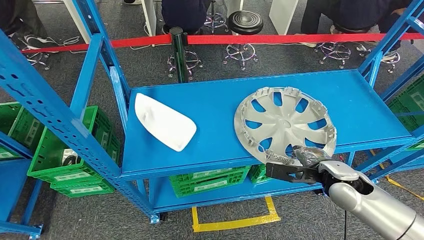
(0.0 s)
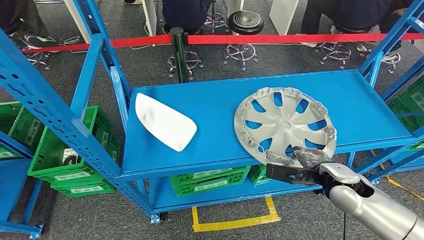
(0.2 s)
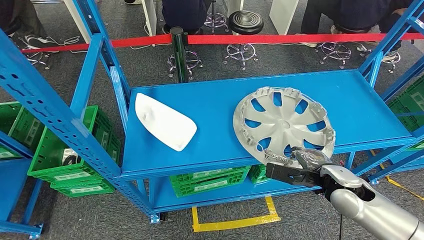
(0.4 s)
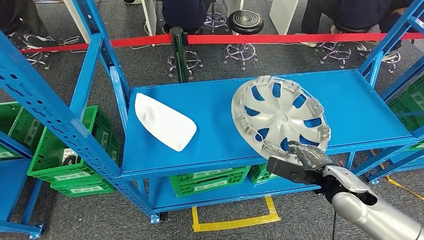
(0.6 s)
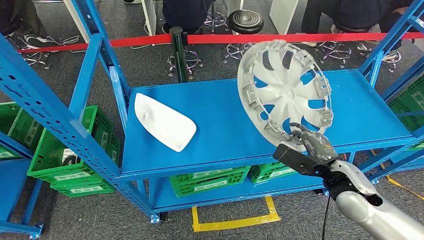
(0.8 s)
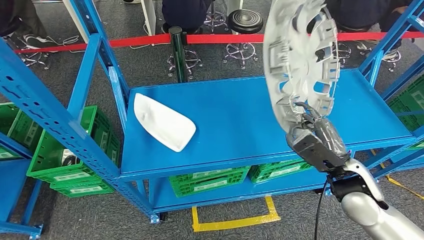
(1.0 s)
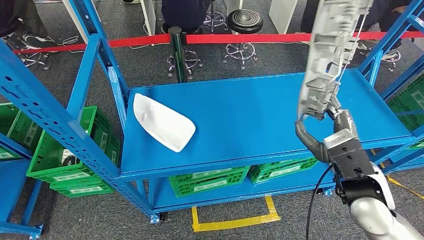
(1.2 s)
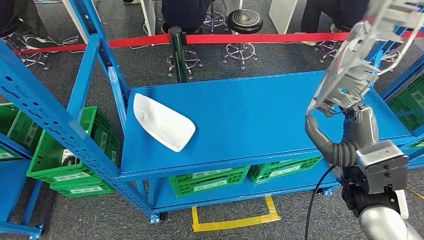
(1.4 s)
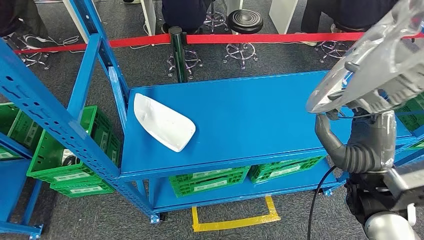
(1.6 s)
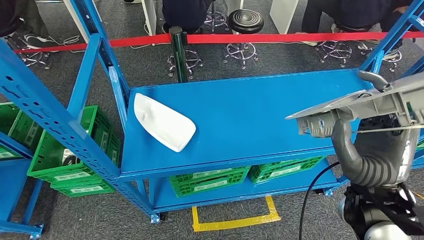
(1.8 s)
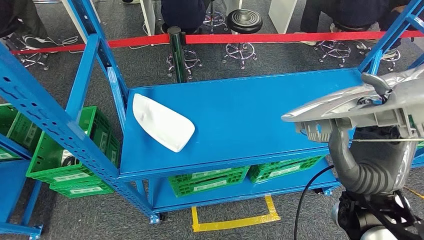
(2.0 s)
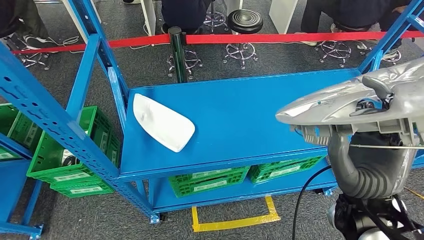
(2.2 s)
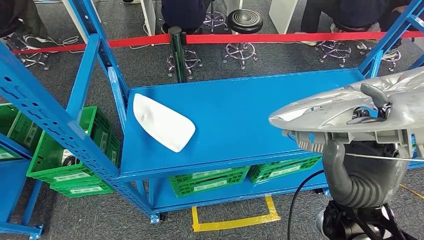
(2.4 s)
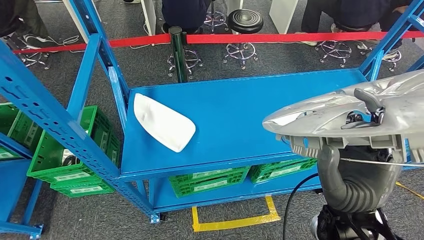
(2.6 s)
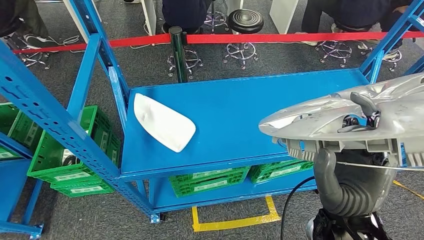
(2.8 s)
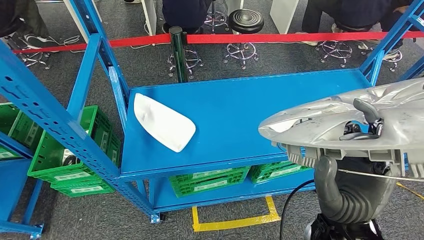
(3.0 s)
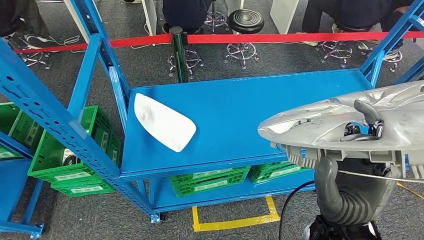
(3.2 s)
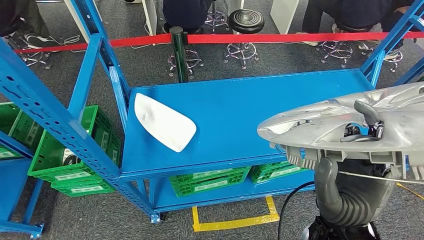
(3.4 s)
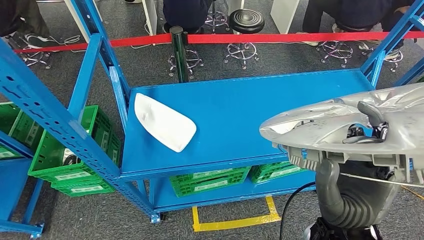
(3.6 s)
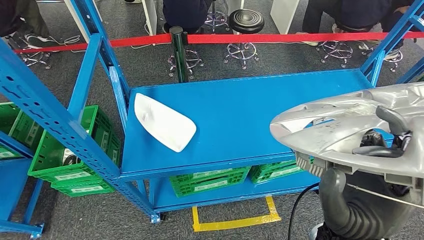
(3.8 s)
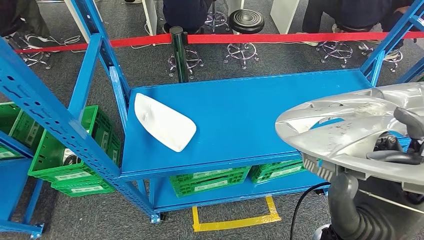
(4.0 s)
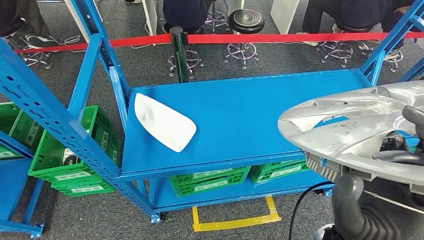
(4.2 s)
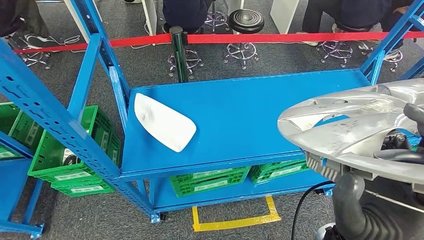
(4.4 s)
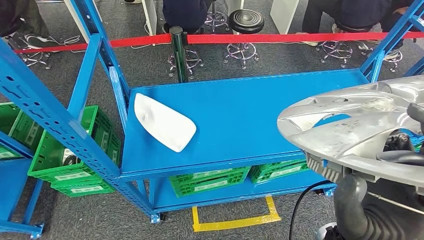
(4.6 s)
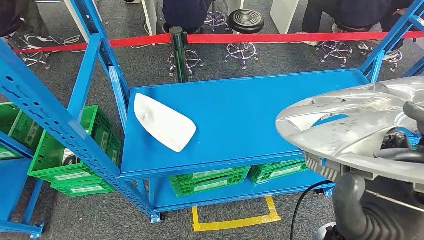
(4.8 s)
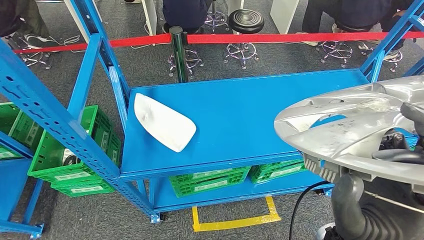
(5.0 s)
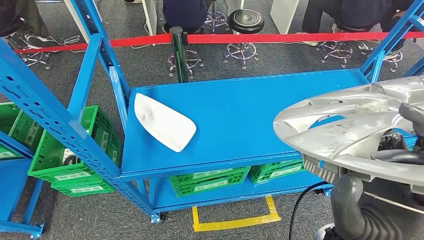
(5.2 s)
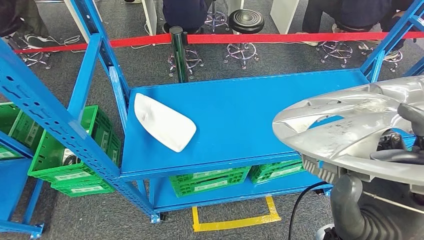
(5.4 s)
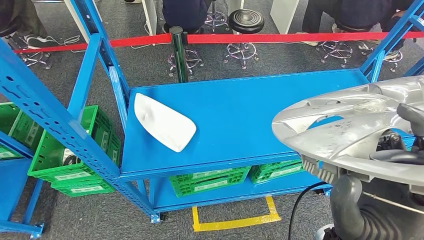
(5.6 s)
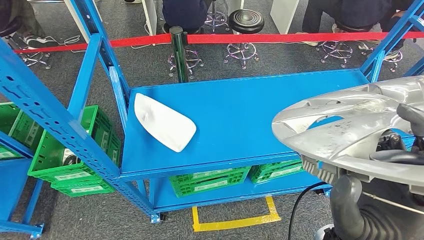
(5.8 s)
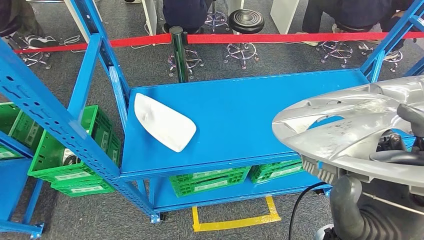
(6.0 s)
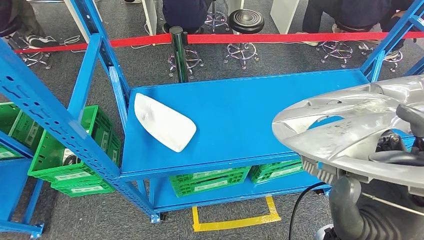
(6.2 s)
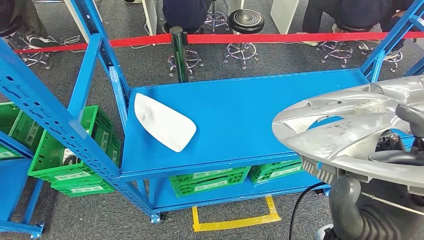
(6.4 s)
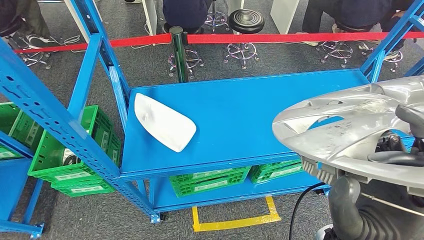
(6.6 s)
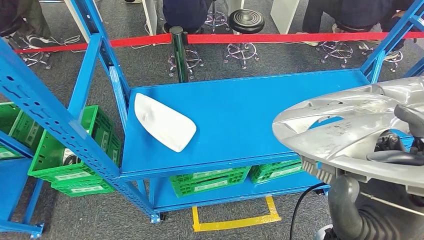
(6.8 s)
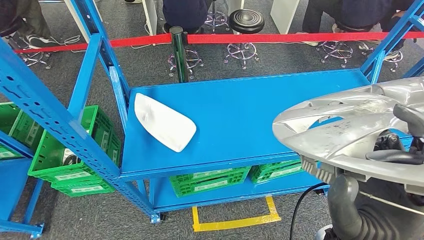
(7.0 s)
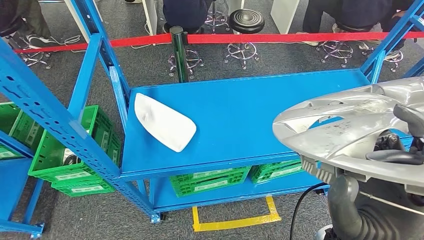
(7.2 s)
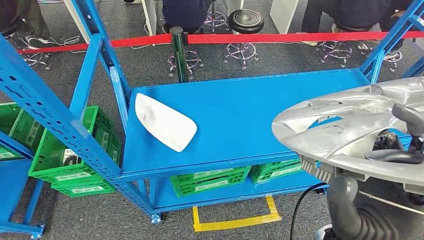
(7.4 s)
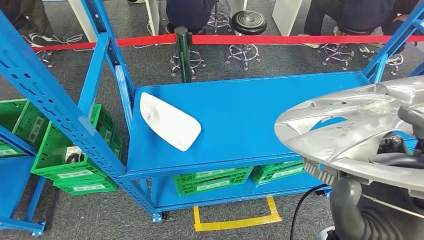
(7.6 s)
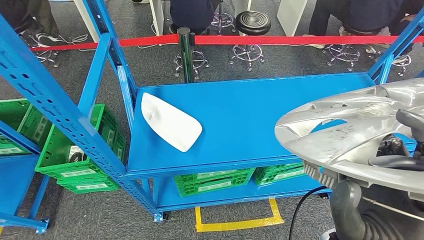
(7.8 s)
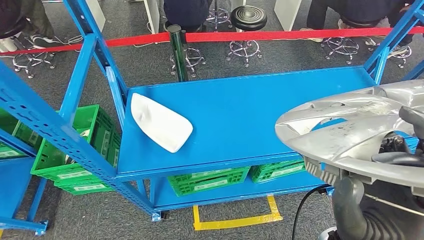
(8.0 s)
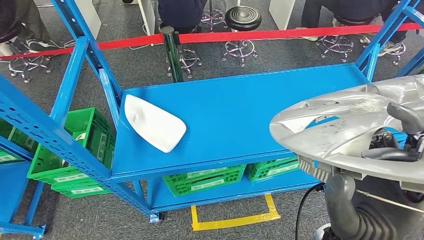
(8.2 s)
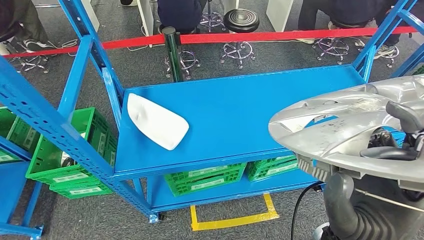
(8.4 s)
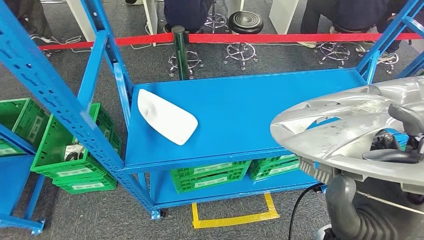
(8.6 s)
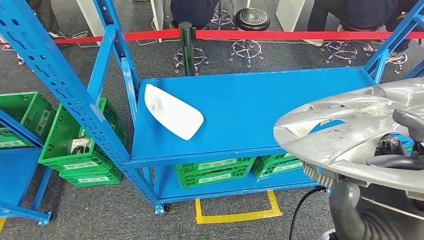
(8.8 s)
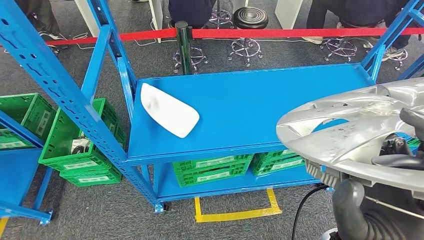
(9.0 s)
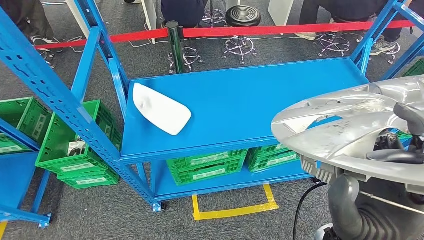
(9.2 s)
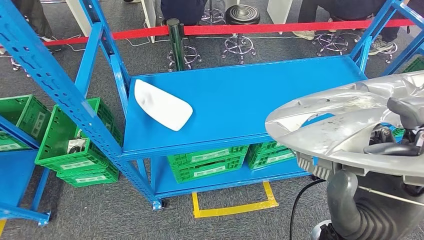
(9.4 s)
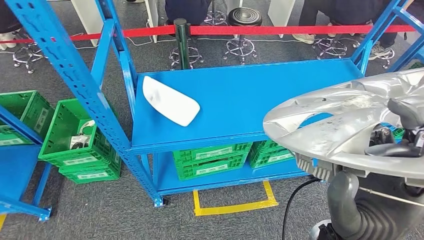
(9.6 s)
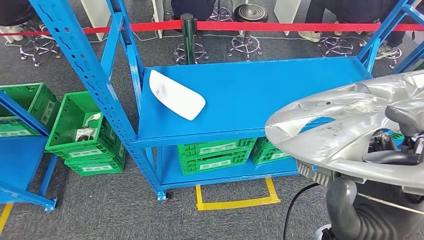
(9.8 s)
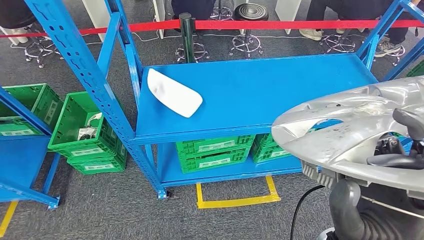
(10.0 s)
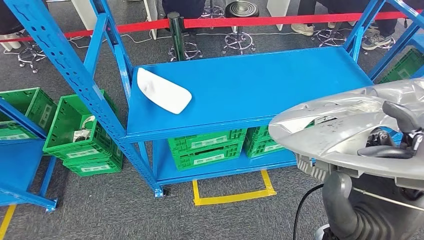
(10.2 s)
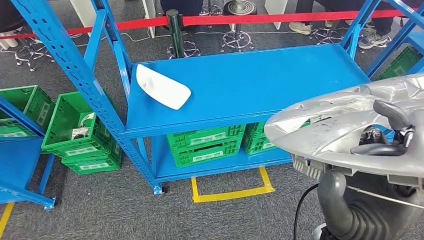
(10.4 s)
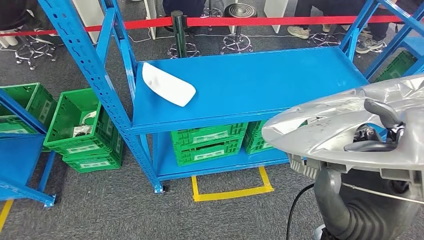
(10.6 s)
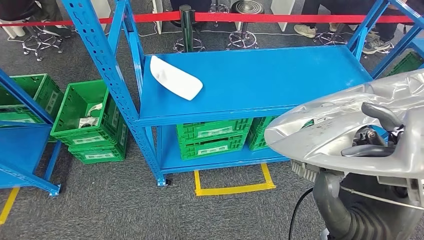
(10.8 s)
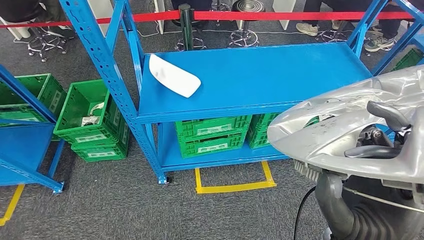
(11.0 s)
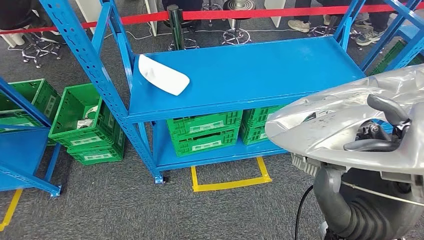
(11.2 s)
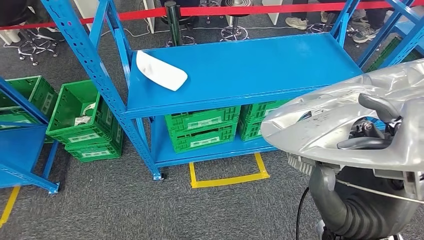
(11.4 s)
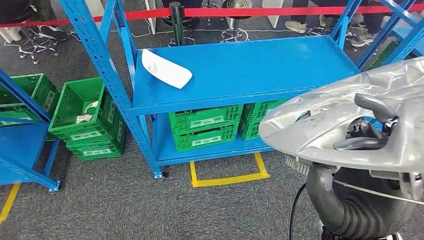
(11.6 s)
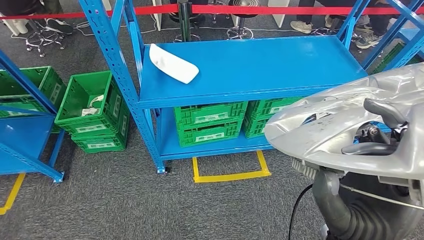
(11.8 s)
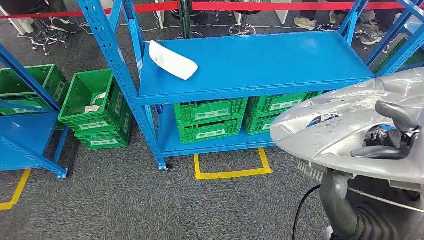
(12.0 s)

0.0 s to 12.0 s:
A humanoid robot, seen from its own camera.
Step, 0.0 to 3.2 s: Take small components from the rack.
3.0 to 4.4 s: There are only small adjustments of the hands.
4.4 to 6.0 s: Neither hand changes place.

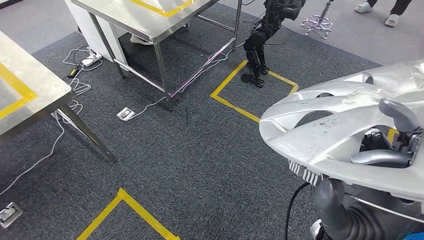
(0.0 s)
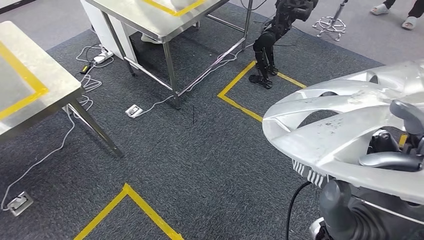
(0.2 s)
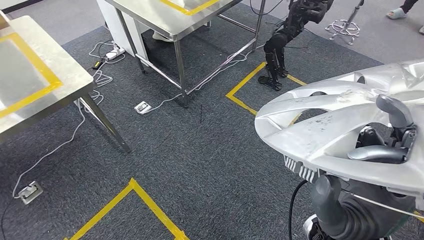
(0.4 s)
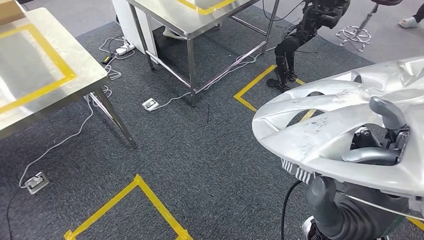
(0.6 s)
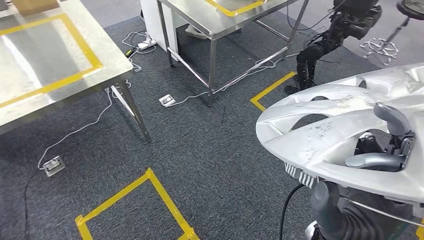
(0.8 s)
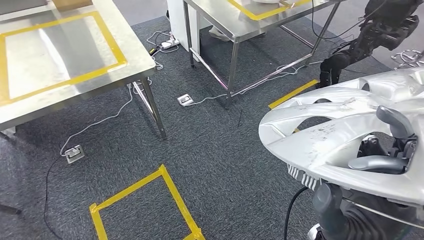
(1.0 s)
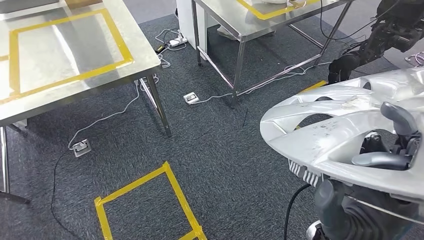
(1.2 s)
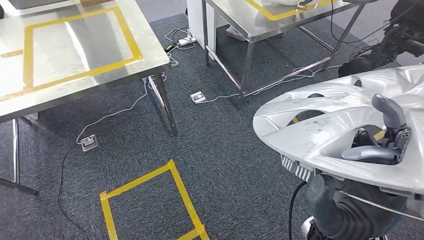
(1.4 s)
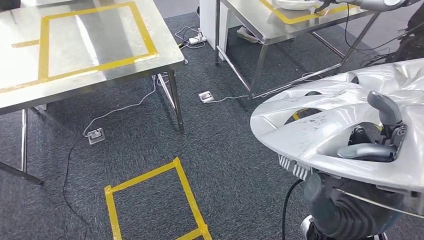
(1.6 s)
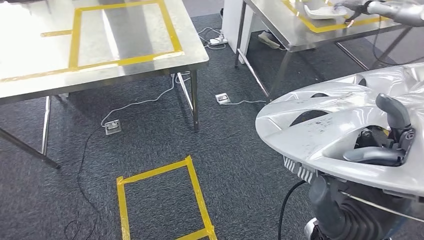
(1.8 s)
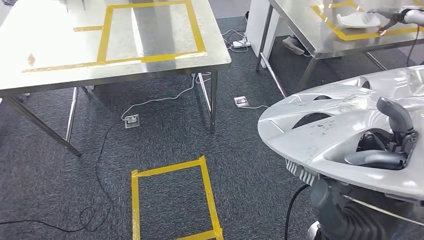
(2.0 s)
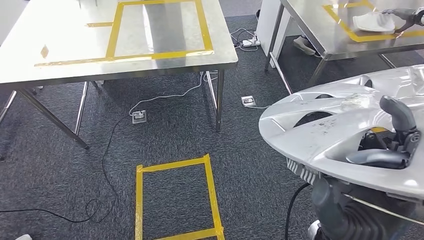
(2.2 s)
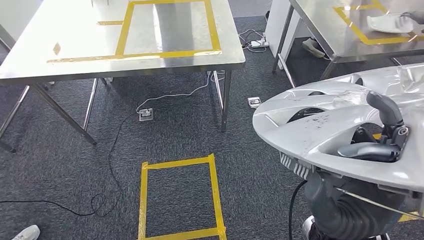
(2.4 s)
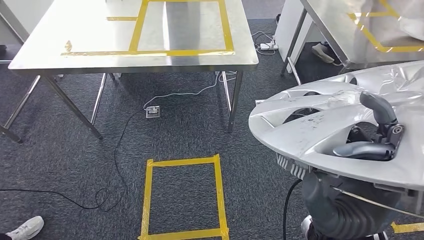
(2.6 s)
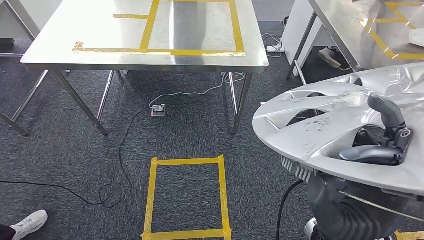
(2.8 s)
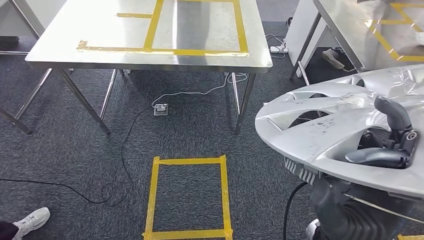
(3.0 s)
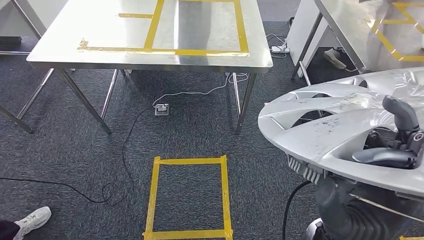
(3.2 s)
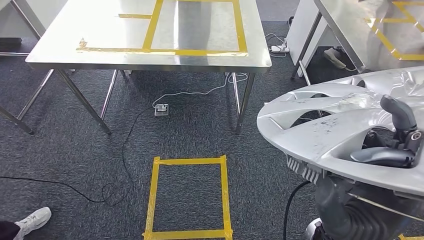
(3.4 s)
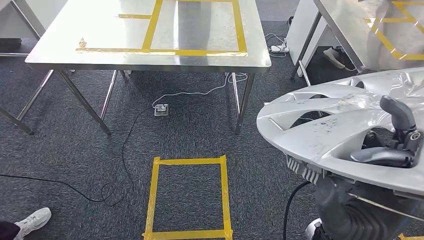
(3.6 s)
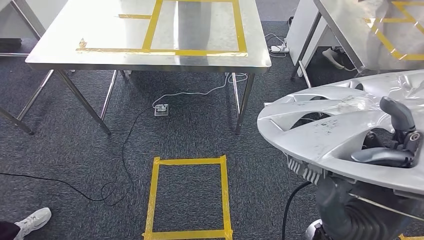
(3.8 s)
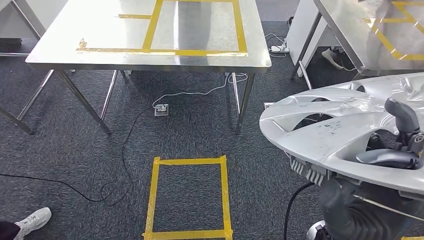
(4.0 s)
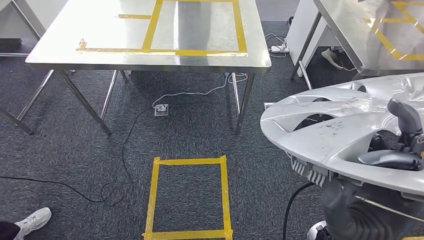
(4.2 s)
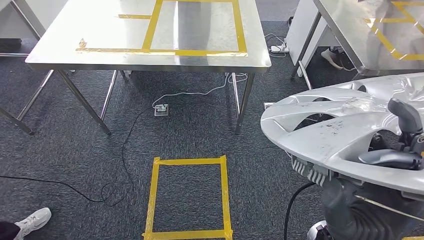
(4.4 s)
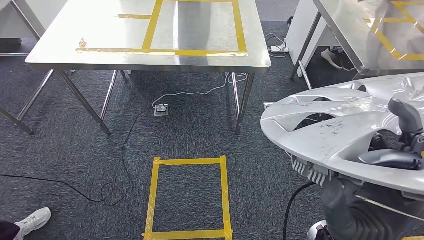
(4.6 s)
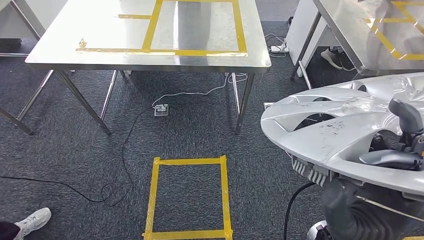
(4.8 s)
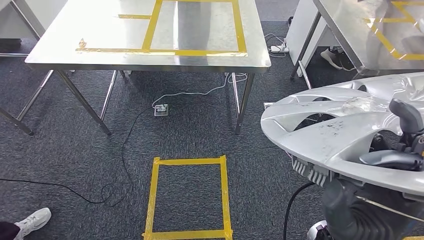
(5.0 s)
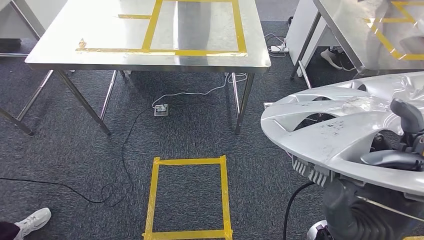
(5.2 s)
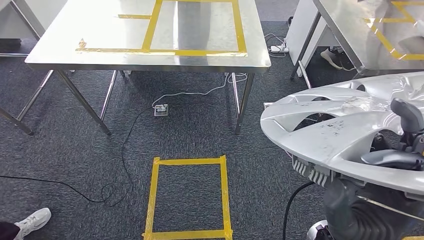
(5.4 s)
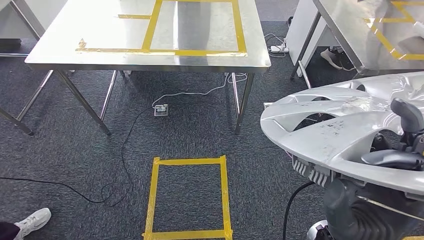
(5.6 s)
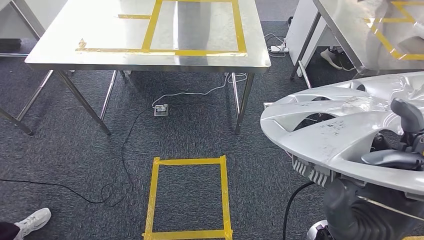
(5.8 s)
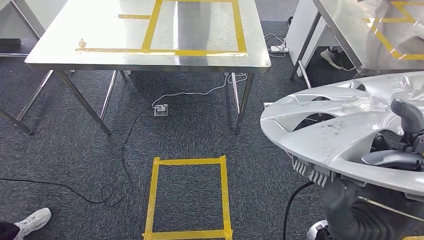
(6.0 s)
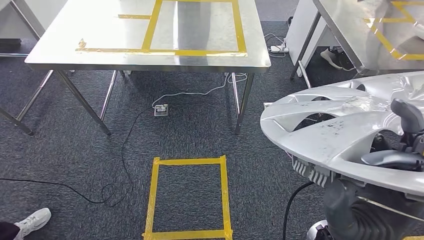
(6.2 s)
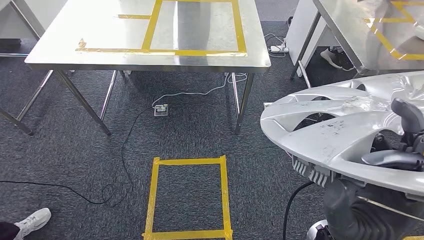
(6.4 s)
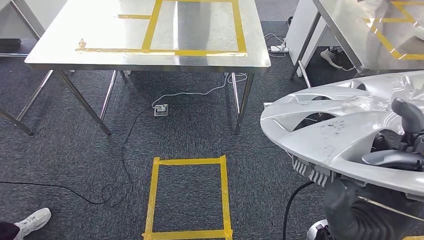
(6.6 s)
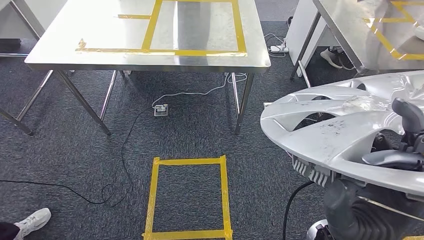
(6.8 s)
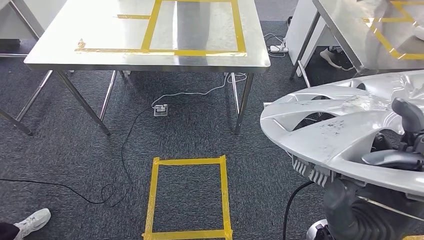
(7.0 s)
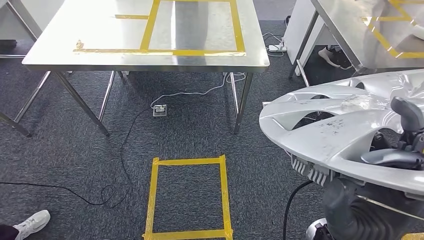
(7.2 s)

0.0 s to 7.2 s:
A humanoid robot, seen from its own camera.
4.4 to 7.2 s: Neither hand changes place.
